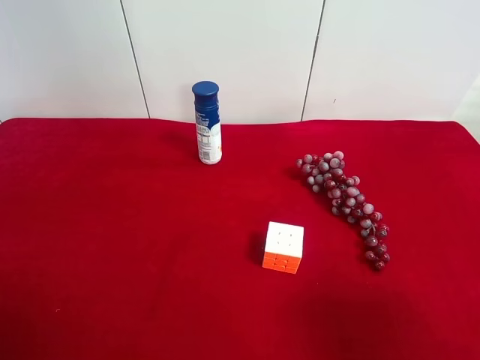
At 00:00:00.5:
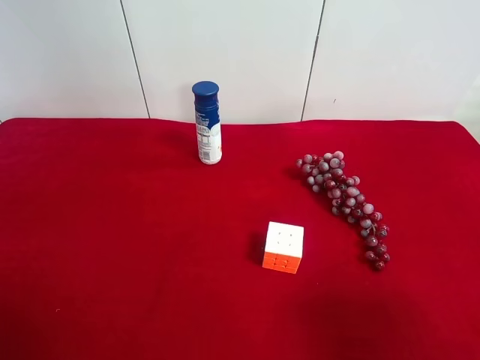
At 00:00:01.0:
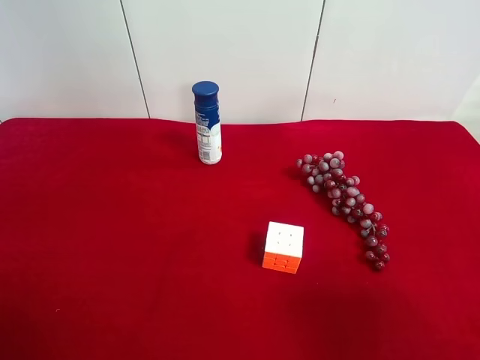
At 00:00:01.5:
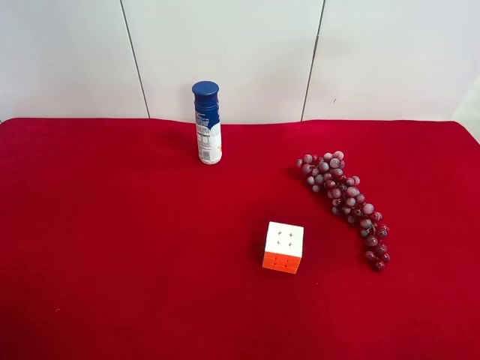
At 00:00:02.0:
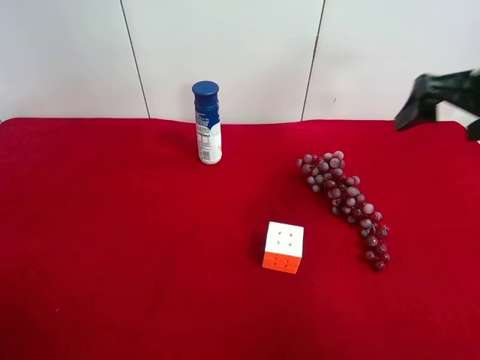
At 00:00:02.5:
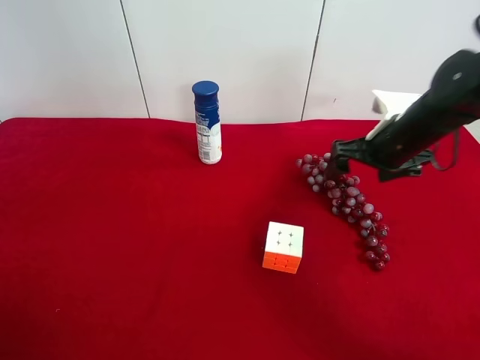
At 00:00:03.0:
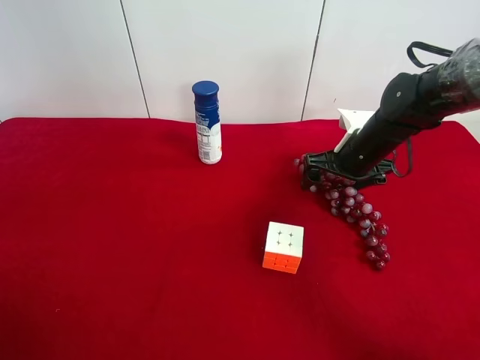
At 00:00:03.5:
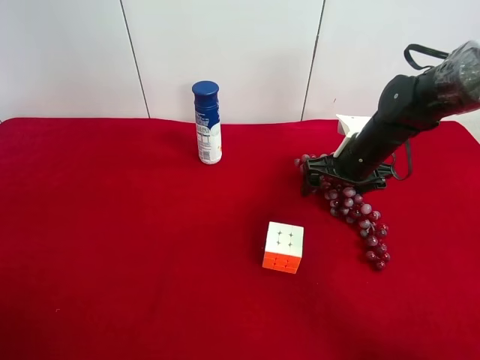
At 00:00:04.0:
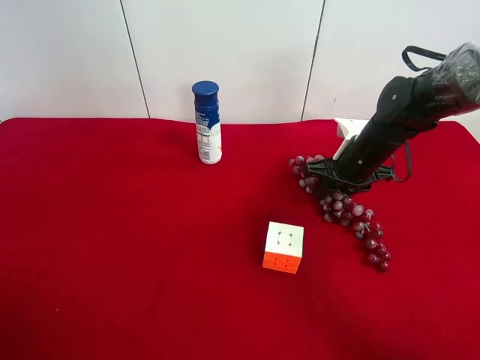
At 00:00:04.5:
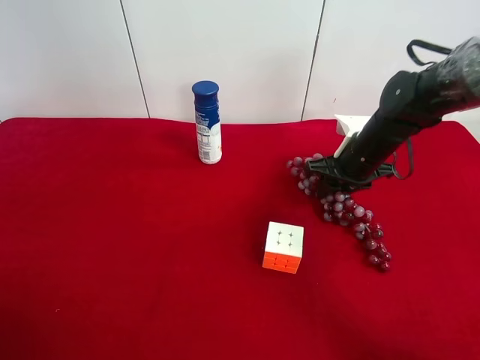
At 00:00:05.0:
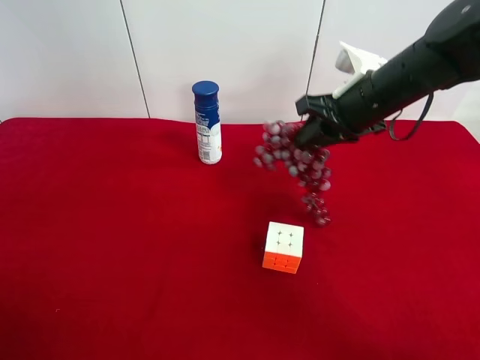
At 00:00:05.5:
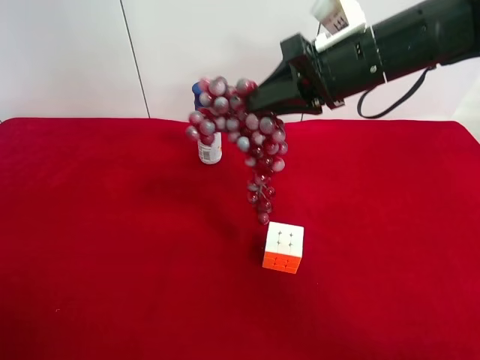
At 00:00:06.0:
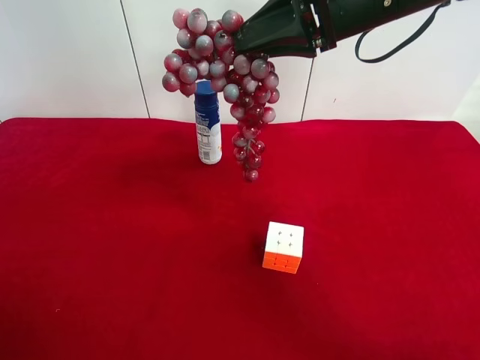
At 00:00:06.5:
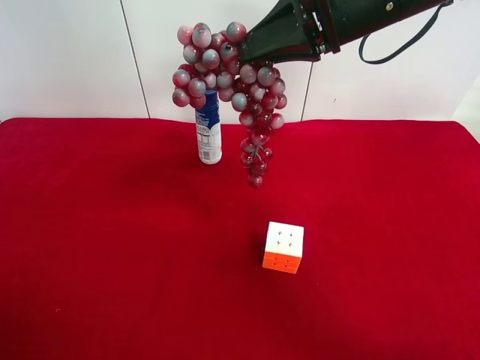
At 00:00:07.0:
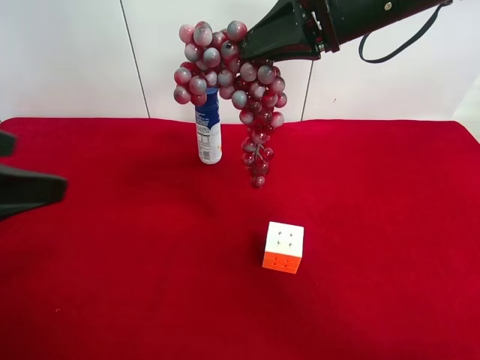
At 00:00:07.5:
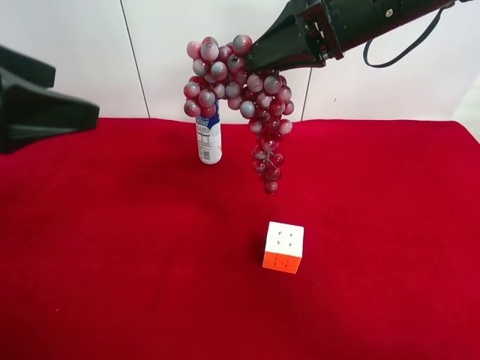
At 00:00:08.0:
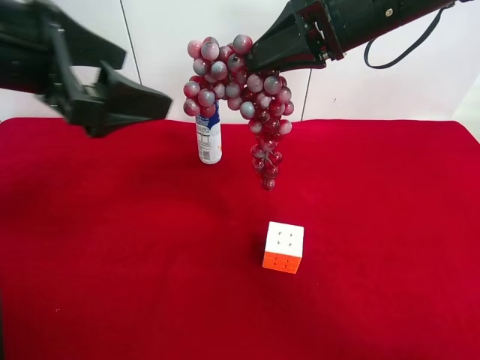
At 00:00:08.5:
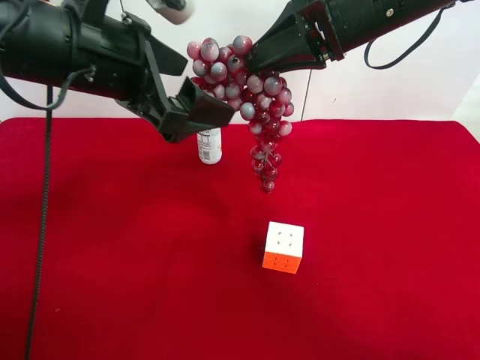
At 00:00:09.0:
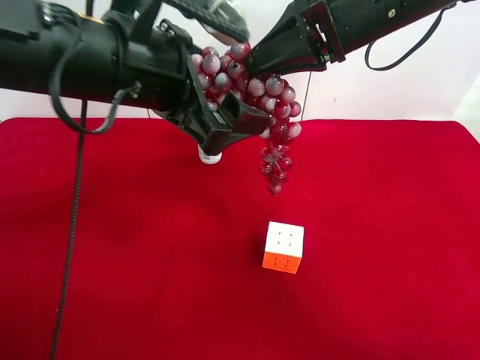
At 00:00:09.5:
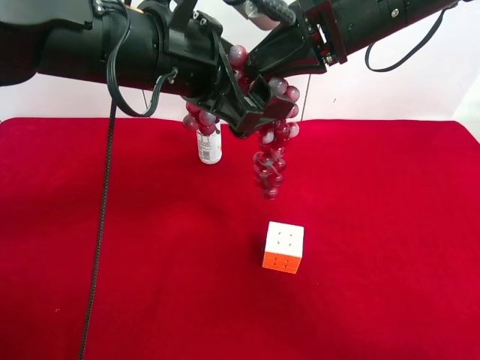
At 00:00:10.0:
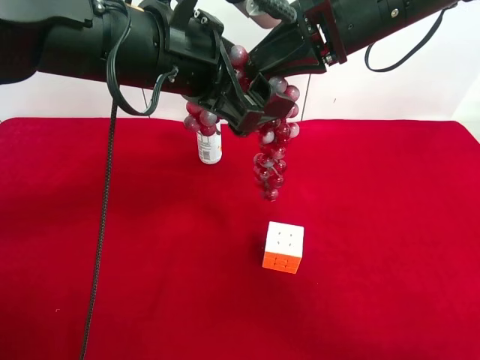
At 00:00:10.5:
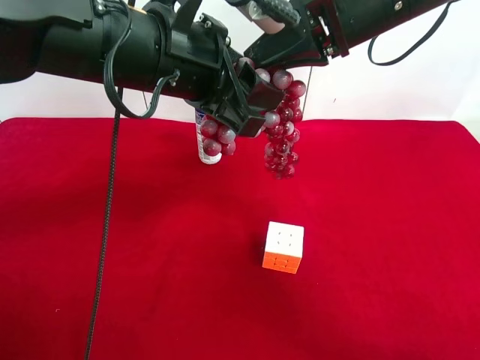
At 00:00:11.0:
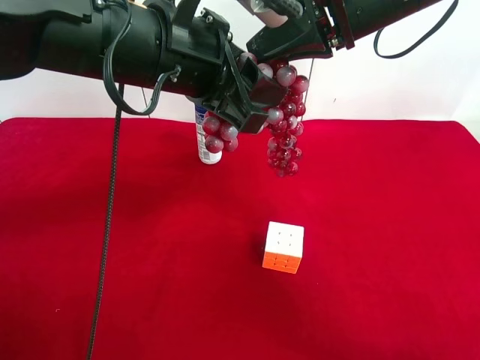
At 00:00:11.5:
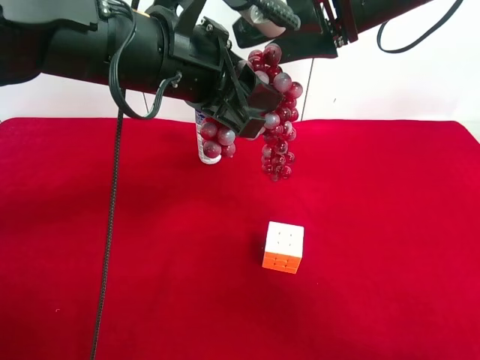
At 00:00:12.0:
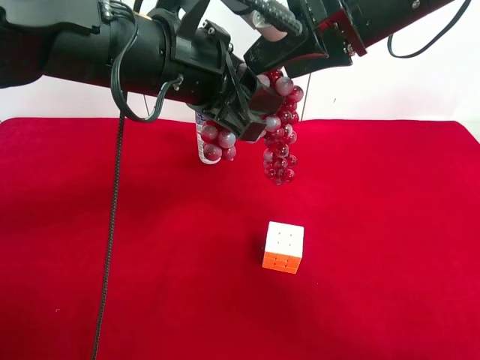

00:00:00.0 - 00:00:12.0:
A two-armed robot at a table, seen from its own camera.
Task of the whole recording: use the right gripper to pick up the item and transfer it from the right gripper to the left gripper.
Step, 00:00:00.0 - 00:00:04.0: Use the right gripper to grab the grape on the right side of the table.
Step, 00:00:04.5 - 00:00:11.5: Pass the grape to the left gripper.
00:00:00.0 - 00:00:02.0: The right gripper moves forward, about 25 cm.
00:00:02.0 - 00:00:04.0: The right gripper travels downward, forward and to the left by about 20 cm, and closes its fingers.
00:00:04.0 - 00:00:06.0: The right gripper travels upward by roughly 20 cm.
00:00:06.0 - 00:00:08.0: The left gripper goes about 25 cm forward and to the right.
00:00:08.0 - 00:00:10.0: The left gripper heads to the right, covering some 10 cm.
00:00:10.0 - 00:00:12.0: The right gripper opens up. The left gripper closes its fingers.

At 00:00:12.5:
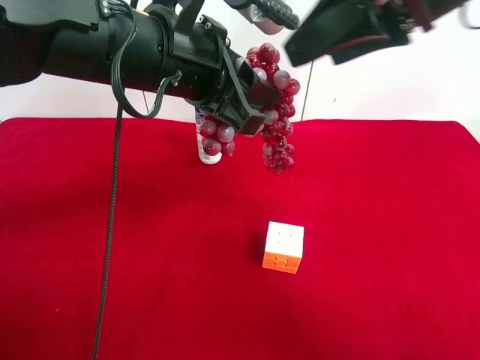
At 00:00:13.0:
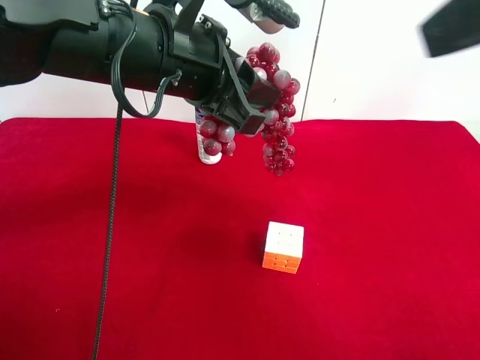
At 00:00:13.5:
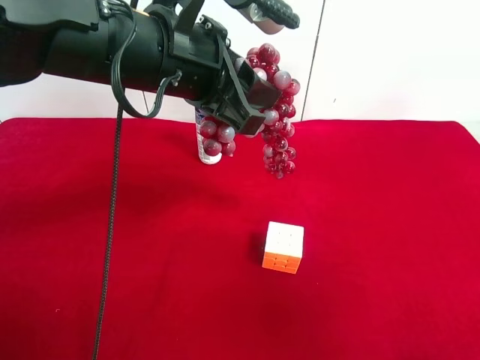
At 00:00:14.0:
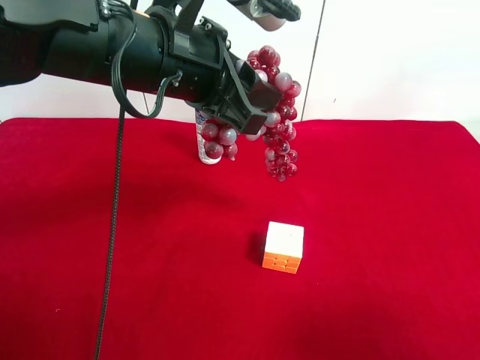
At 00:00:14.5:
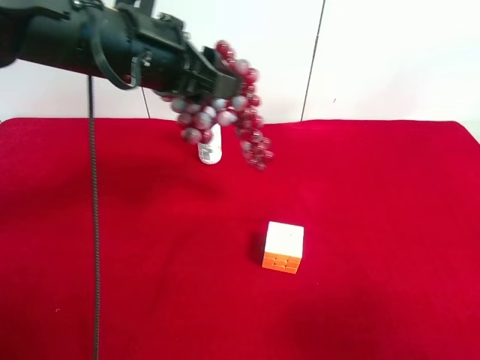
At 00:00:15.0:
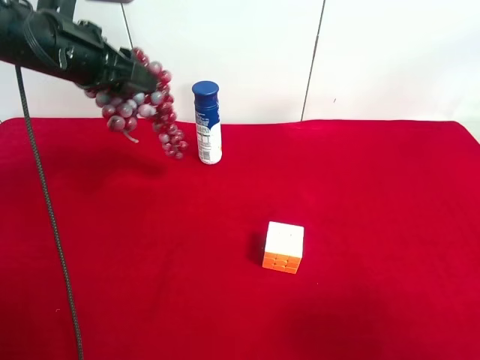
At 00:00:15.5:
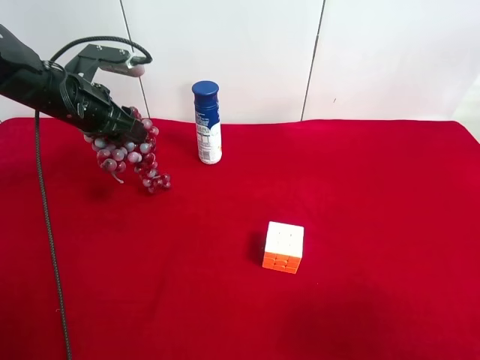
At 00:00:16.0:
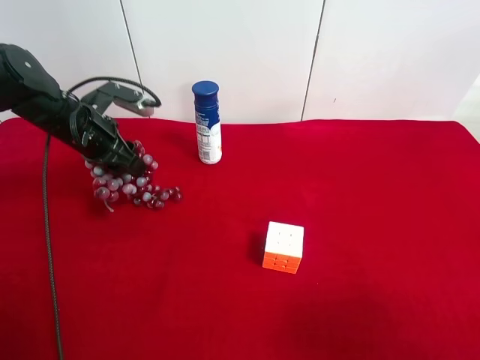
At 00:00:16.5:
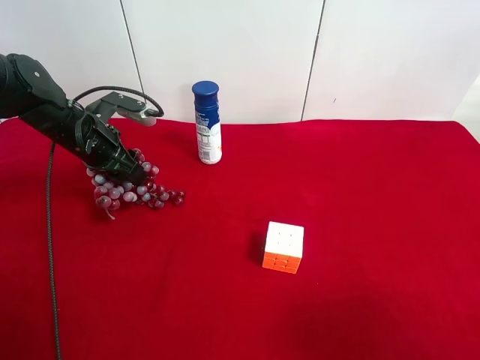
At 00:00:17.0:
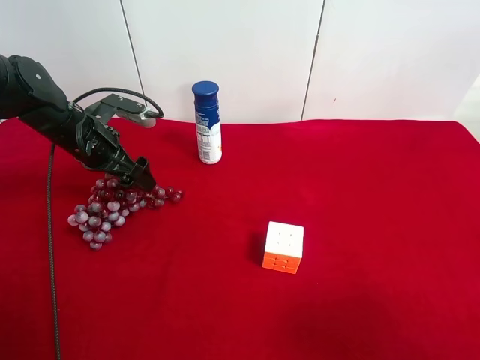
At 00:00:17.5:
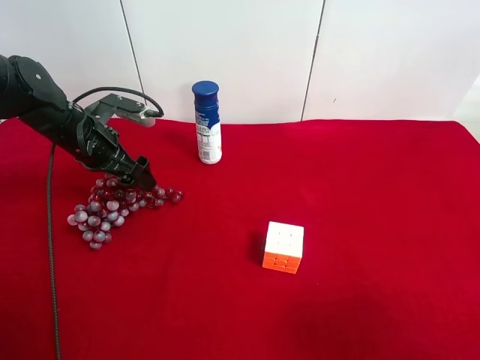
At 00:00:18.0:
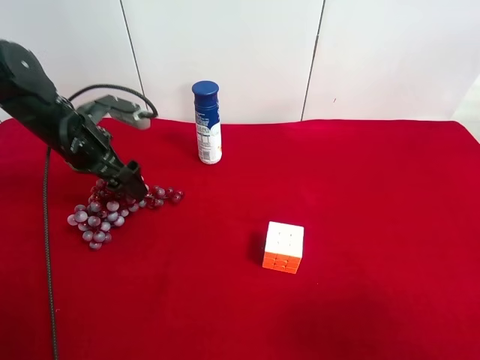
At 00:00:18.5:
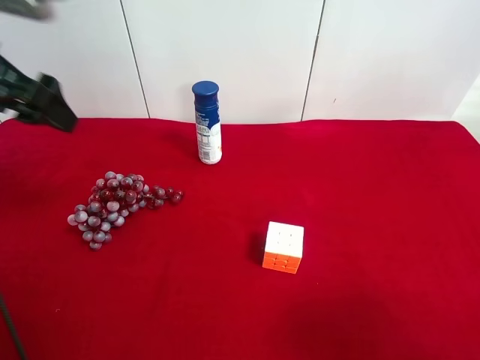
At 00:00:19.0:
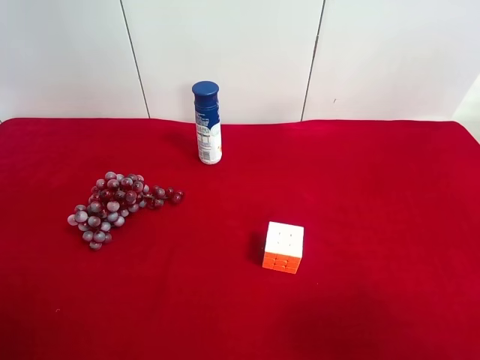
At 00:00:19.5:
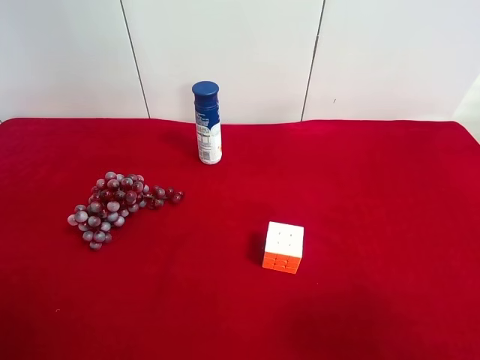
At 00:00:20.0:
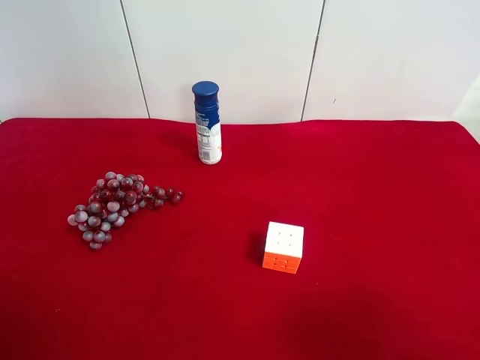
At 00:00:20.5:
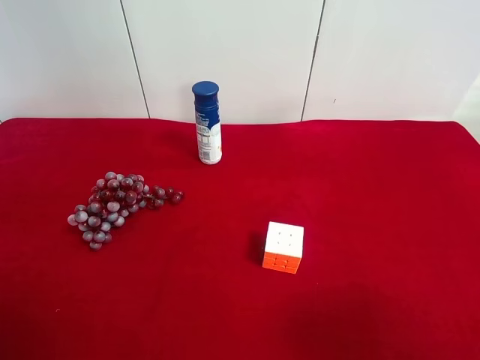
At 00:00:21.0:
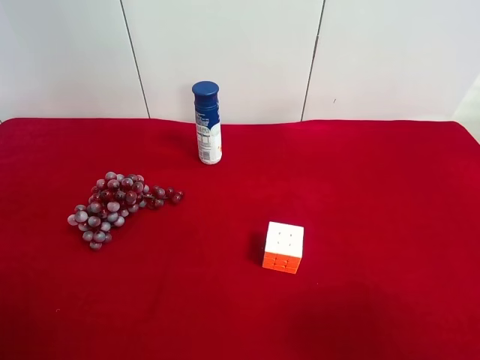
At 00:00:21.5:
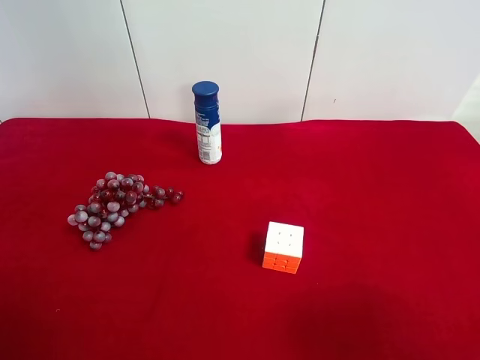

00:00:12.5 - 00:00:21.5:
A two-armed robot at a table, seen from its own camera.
Task of the whole recording: use the right gripper to pick up the item and transfer it from the right gripper to the left gripper.
Step, 00:00:12.5 - 00:00:17.0: The left gripper places grape on the left side of the table.
00:00:12.5 - 00:00:14.5: The left gripper shifts by approximately 5 cm. Meanwhile the right gripper moves backward, downward and to the right, approximately 30 cm.
00:00:14.5 - 00:00:17.0: The left gripper travels downward, to the left and forward by some 20 cm, and opens up.
00:00:17.0 - 00:00:19.5: The left gripper shifts approximately 35 cm backward and upward.
